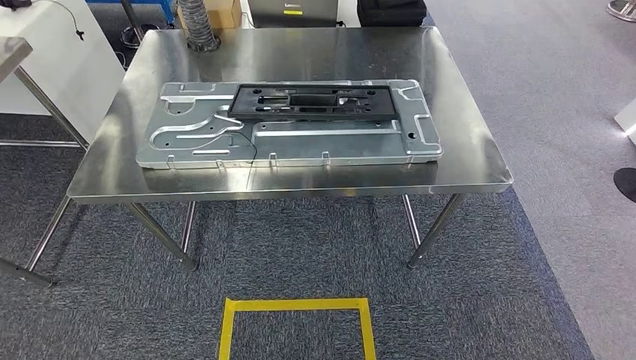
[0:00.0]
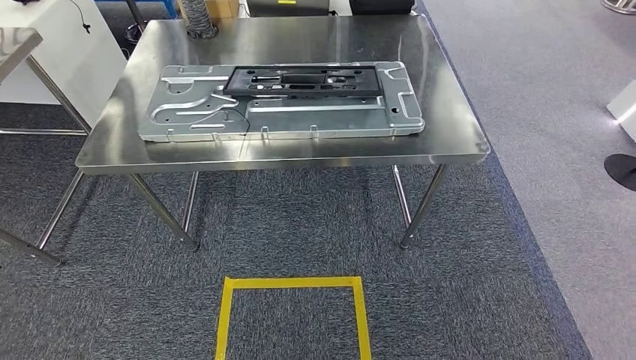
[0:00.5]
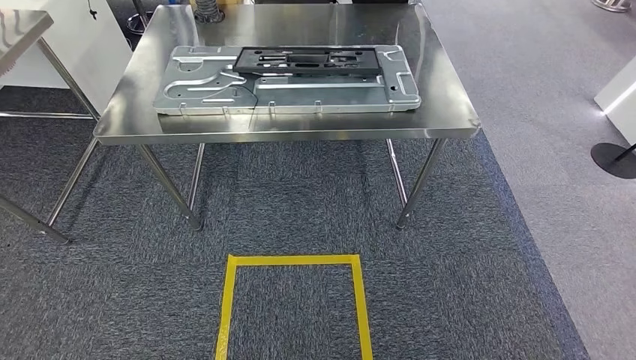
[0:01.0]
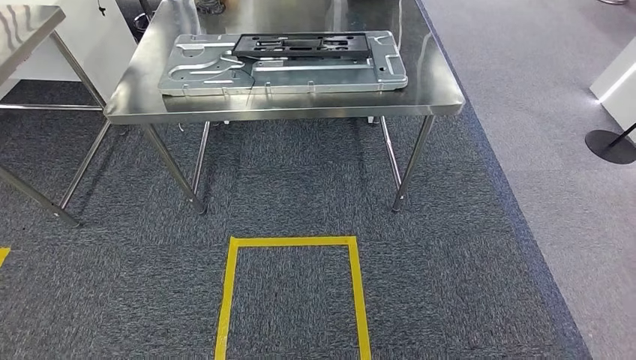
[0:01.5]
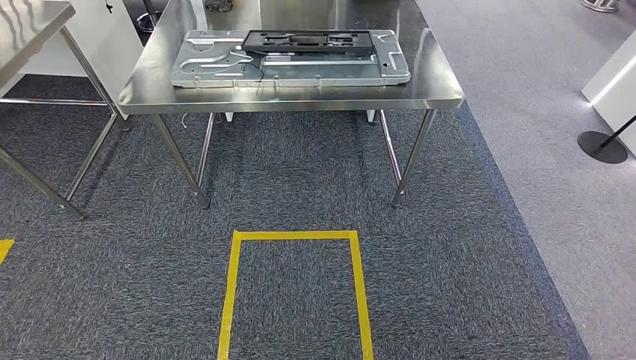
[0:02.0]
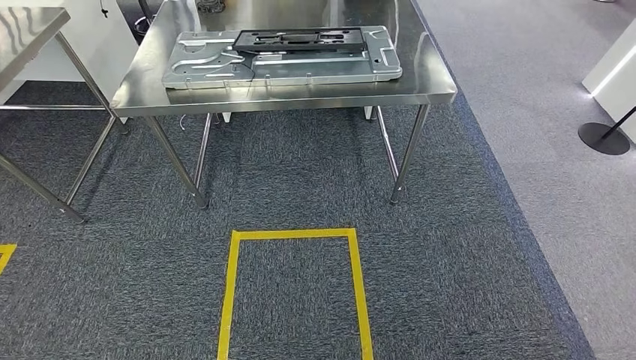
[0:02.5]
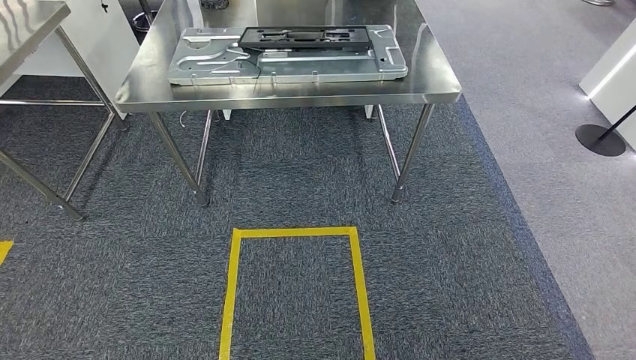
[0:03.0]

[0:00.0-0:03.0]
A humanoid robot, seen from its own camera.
Step, 0:00.0 to 0:03.0: Move to the initial position of the shelf.
0:01.5 to 0:03.0: The hands make only small movements.

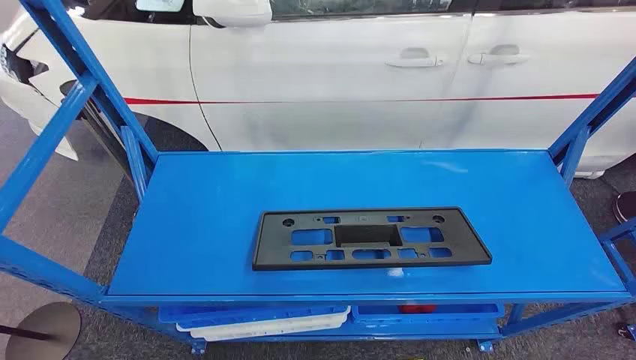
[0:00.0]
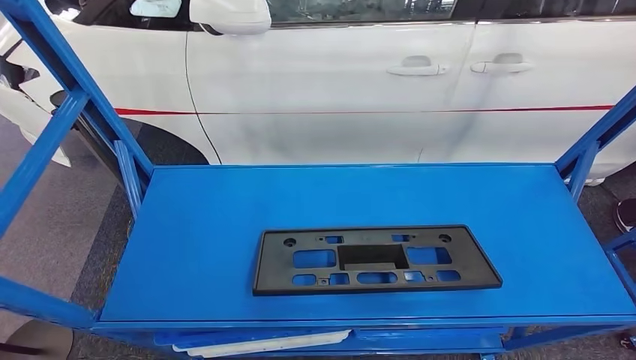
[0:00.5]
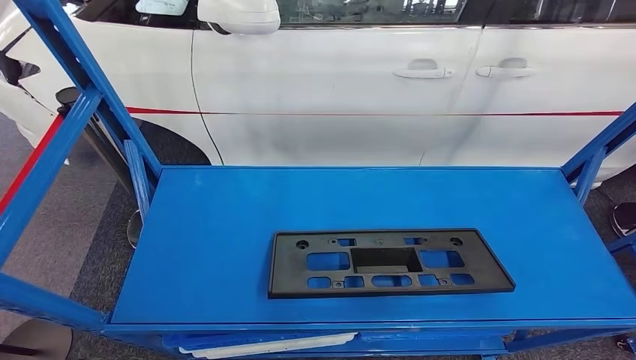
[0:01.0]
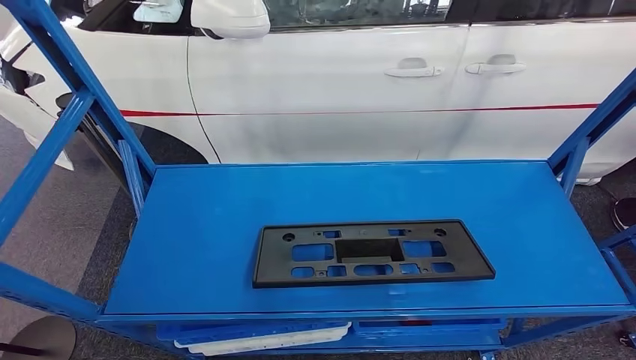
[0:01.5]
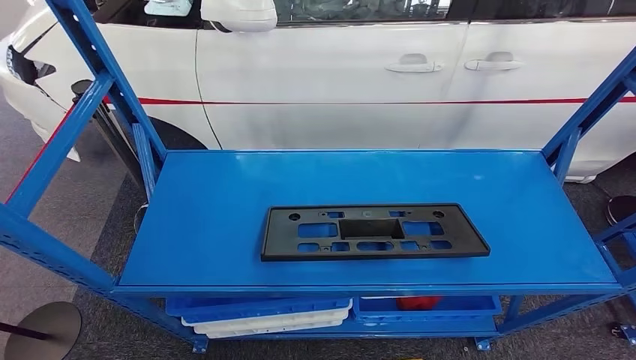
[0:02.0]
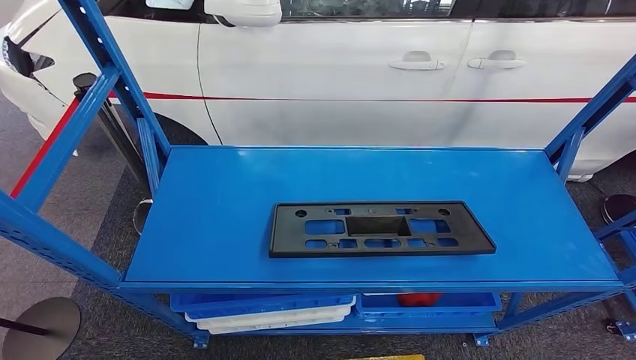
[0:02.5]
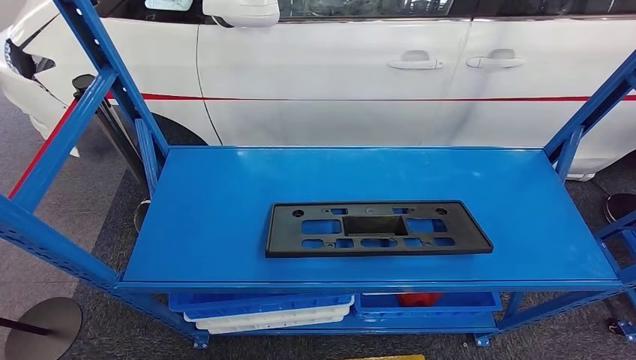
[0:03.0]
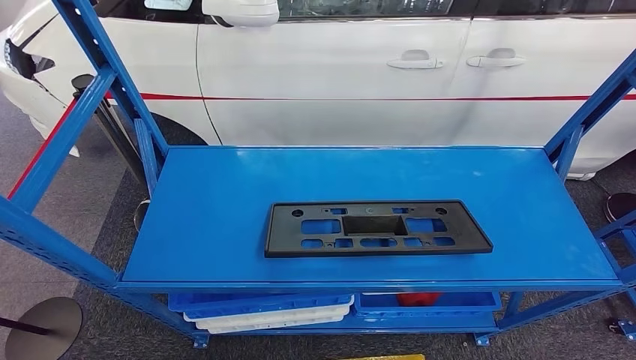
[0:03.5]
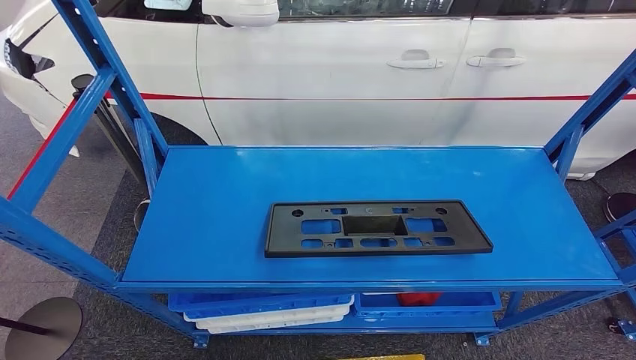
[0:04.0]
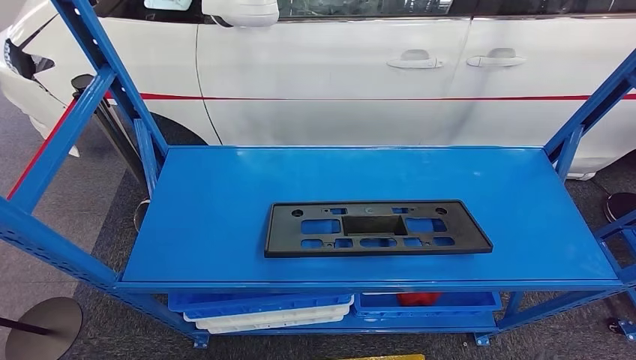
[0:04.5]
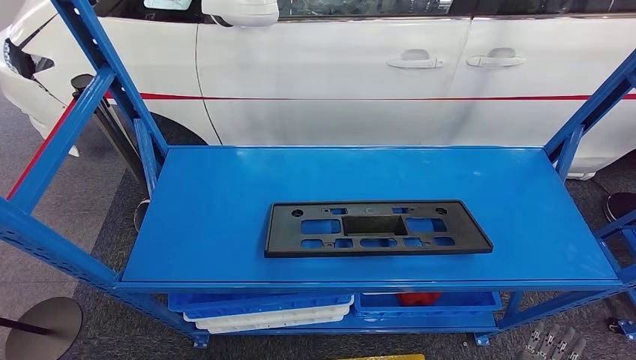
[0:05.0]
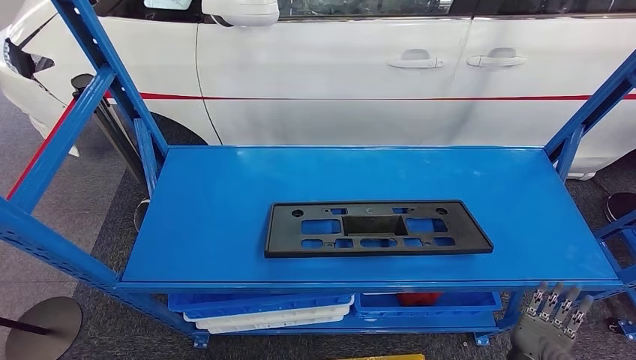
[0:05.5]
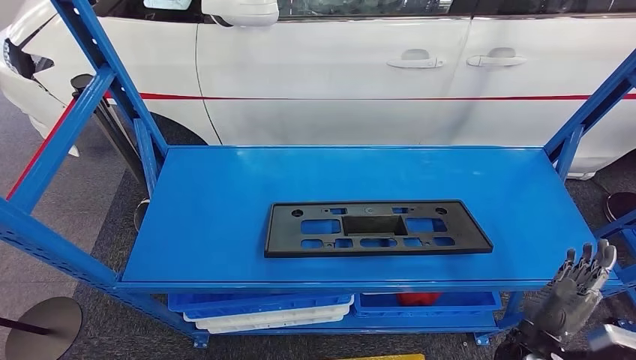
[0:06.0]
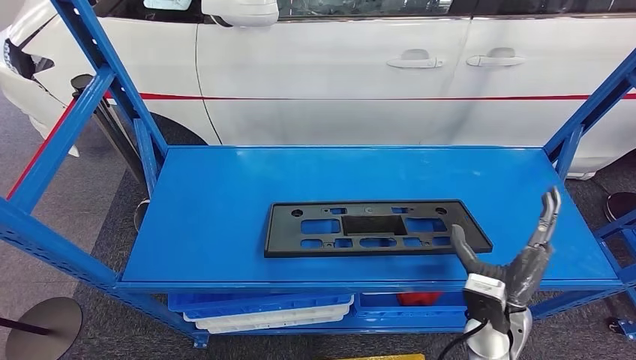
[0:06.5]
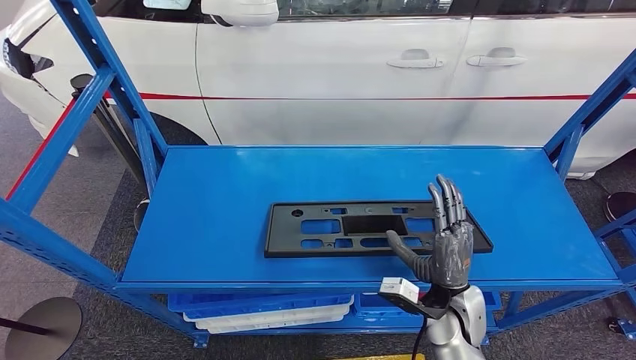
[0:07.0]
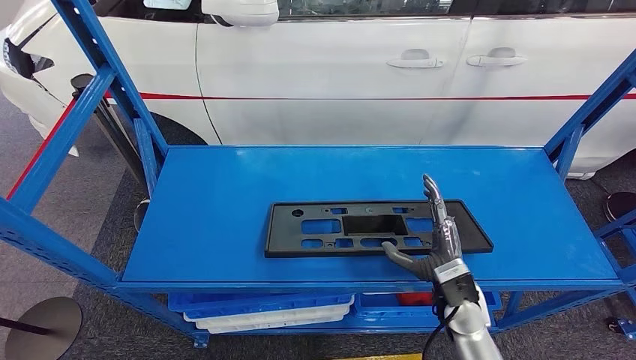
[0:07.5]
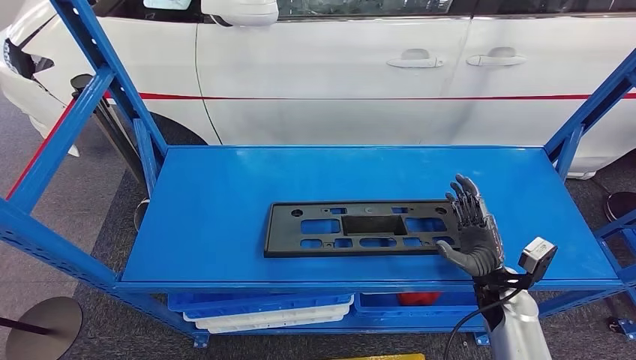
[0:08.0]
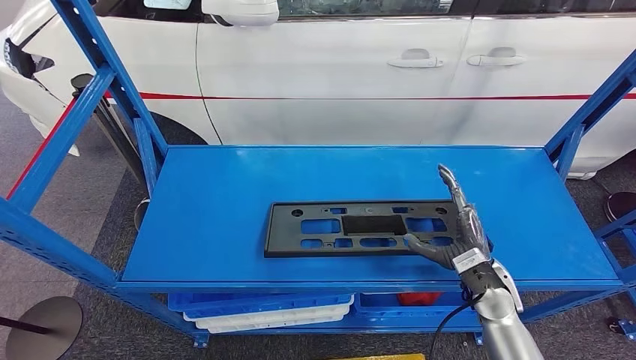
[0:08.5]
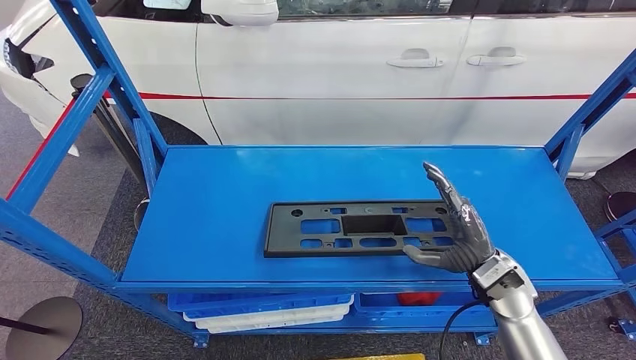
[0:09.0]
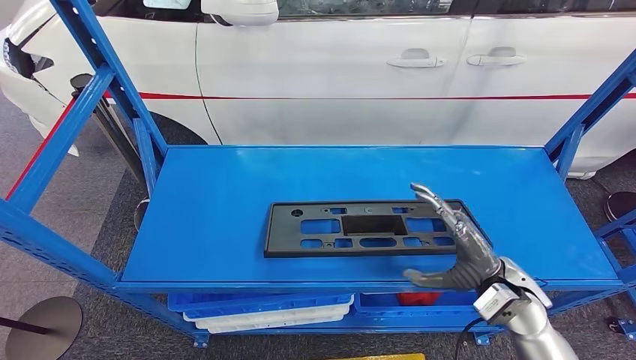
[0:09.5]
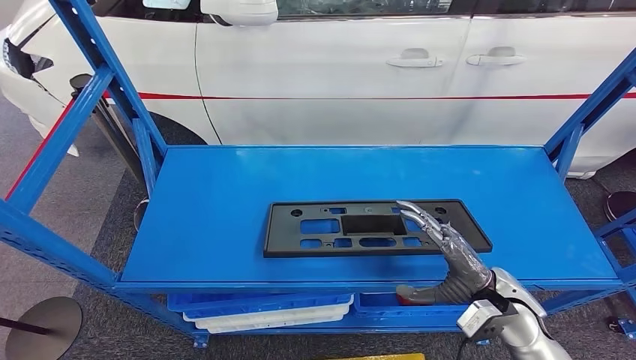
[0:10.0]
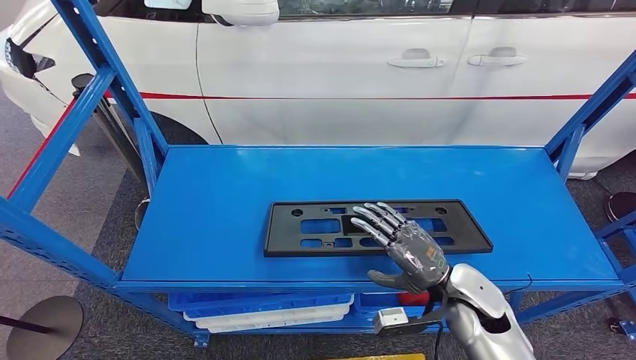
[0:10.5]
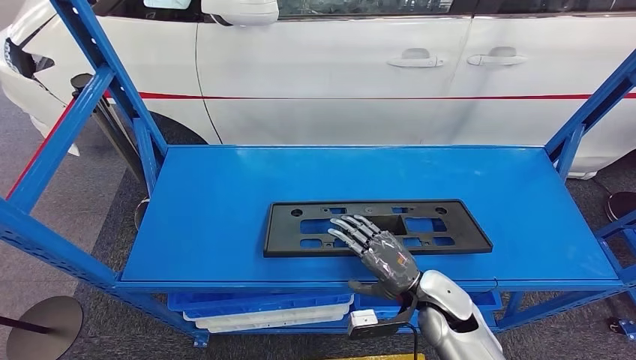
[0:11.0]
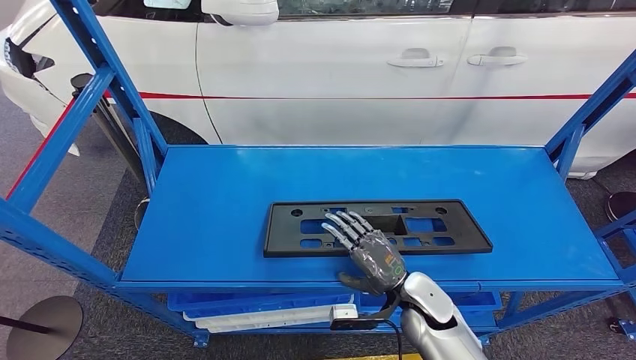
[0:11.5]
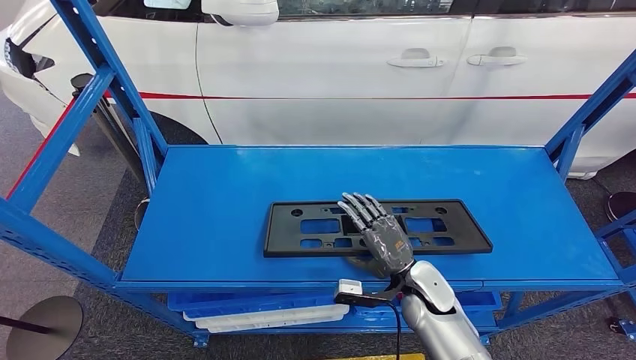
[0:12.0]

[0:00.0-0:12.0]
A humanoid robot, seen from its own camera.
0:02.0 to 0:04.0: The right hand goes some 10 cm to the right.
0:04.0 to 0:06.0: The right hand travels upward and forward by approximately 20 cm.
0:06.0 to 0:08.0: The right hand shifts roughly 10 cm forward, and goes to the left and returns, some 10 cm each way.
0:08.0 to 0:10.0: The right hand travels upward by roughly 5 cm.
0:10.0 to 0:12.0: The right hand heads to the left and downward, covering roughly 15 cm.

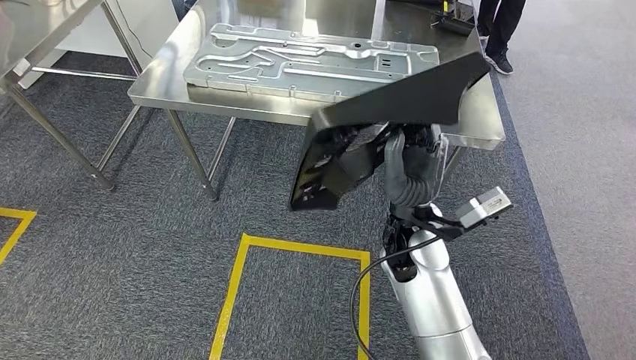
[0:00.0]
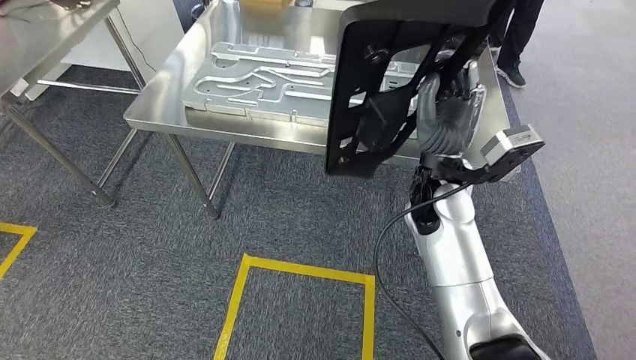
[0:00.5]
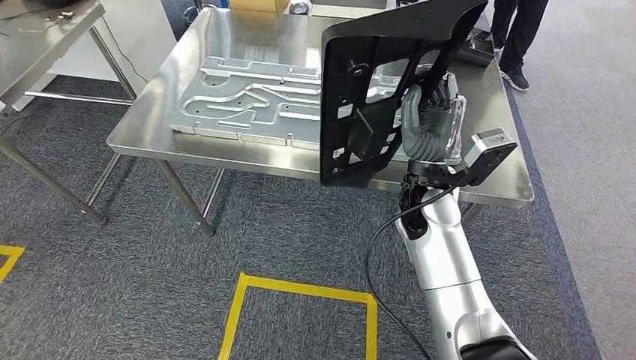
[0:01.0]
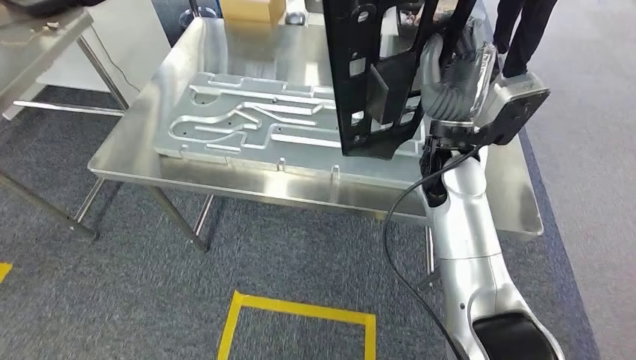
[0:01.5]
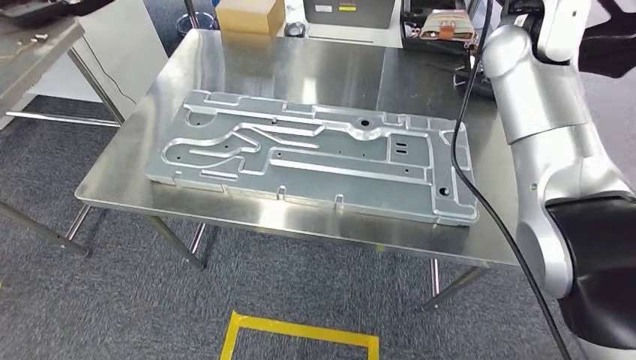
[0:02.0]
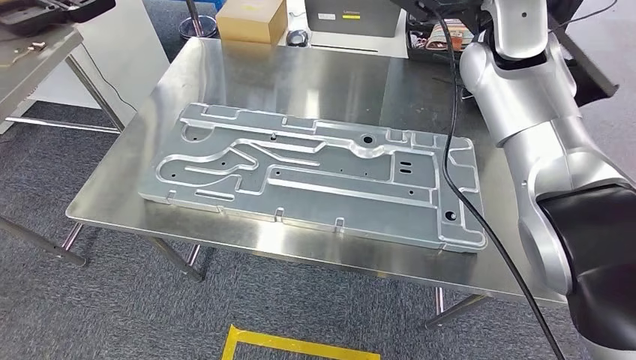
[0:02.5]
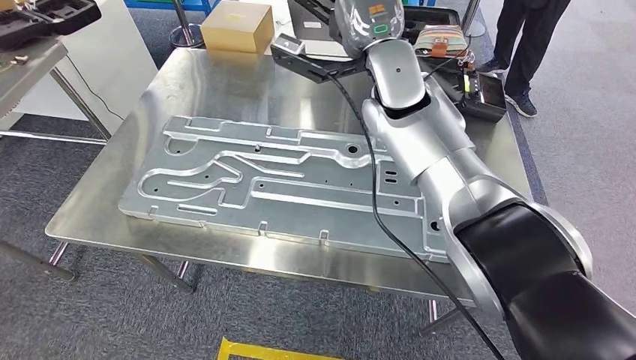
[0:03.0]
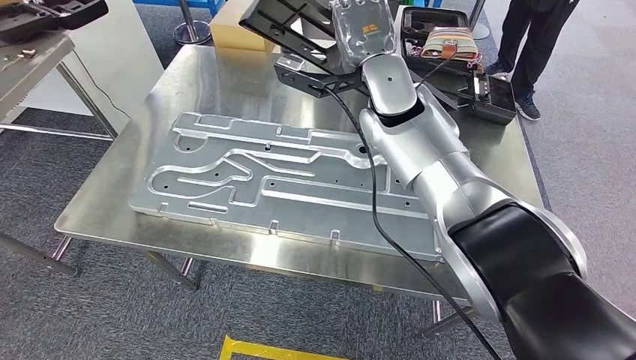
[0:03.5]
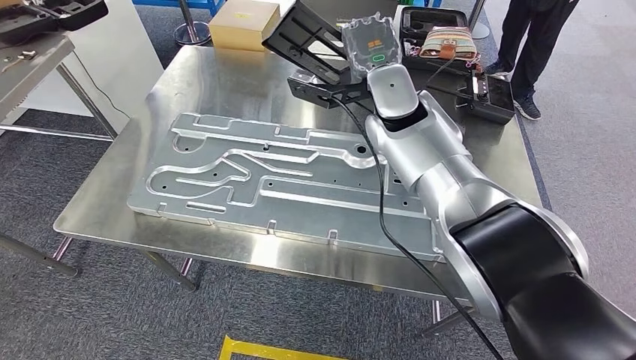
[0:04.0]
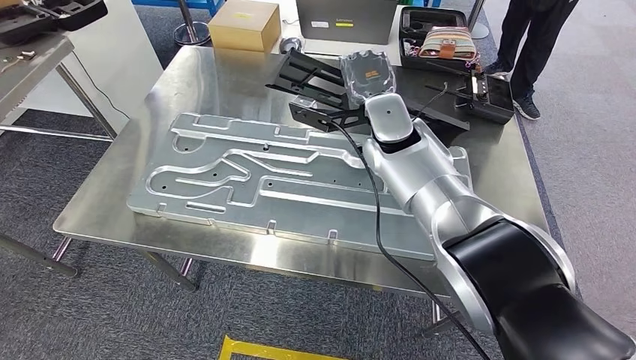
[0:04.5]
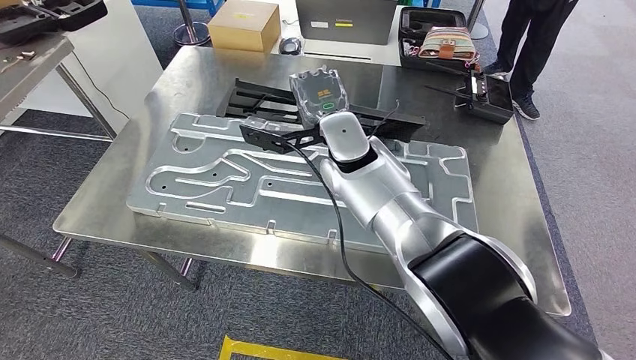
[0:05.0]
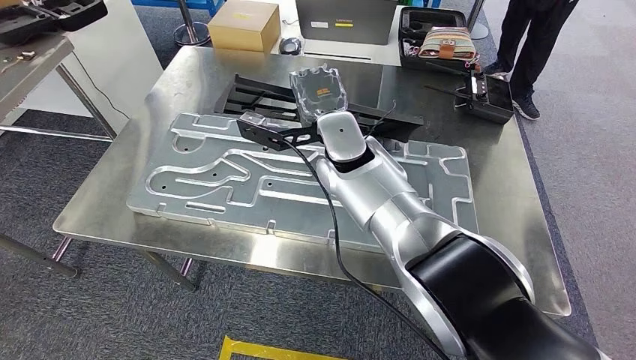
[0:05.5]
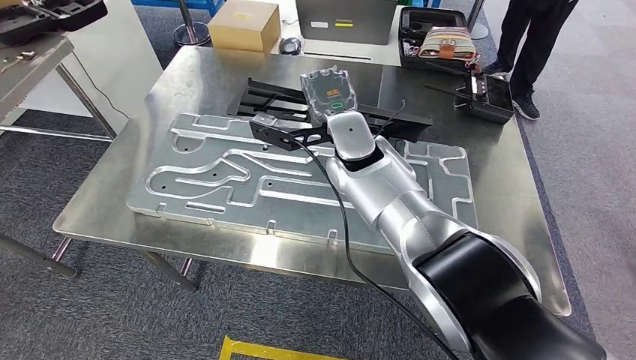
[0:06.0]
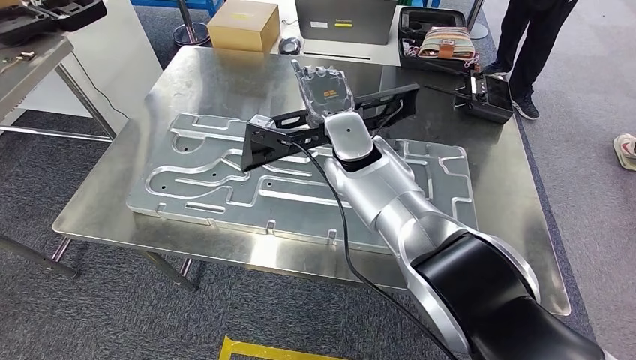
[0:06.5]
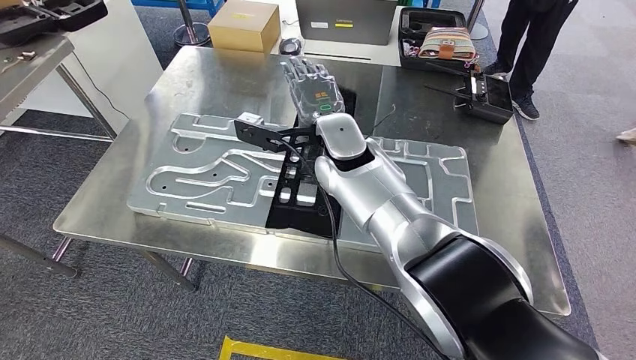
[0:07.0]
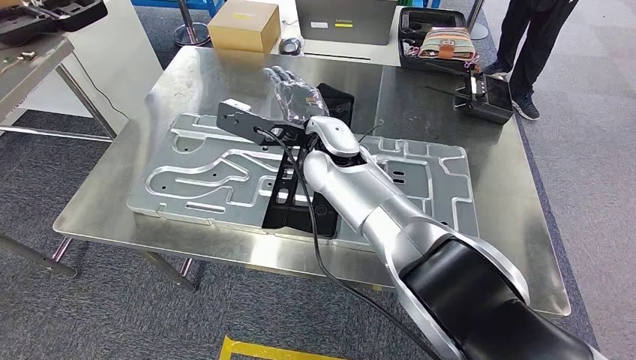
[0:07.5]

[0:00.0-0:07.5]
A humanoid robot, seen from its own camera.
Step, 0:00.0 to 0:02.5: Move the large material to the workbench.
